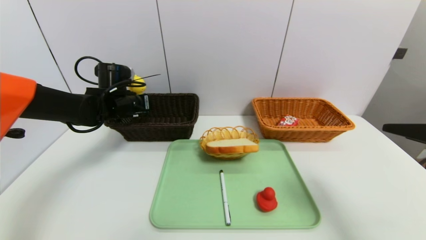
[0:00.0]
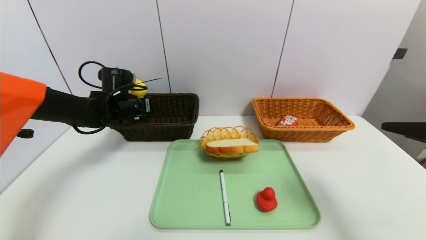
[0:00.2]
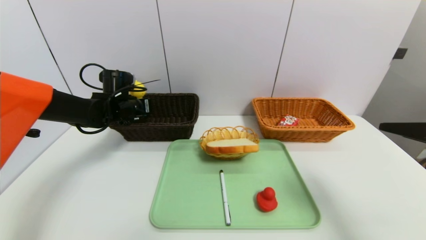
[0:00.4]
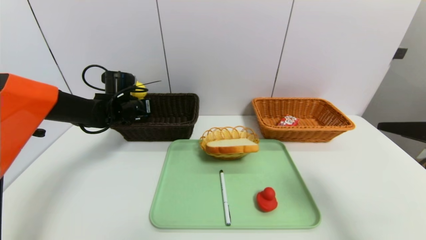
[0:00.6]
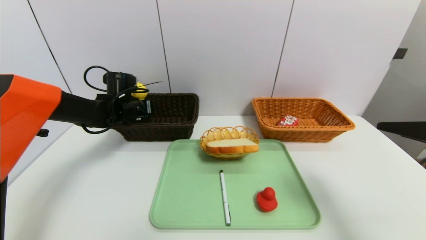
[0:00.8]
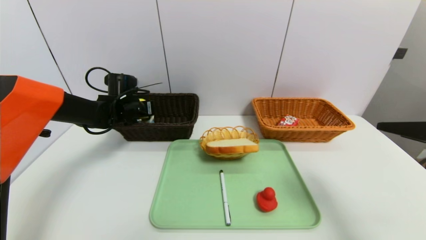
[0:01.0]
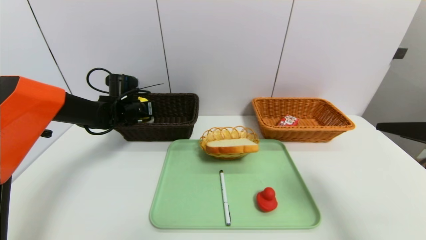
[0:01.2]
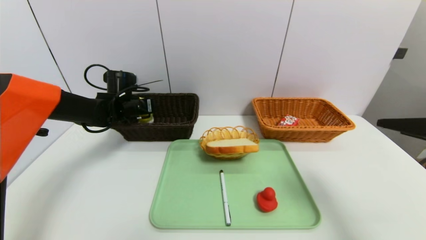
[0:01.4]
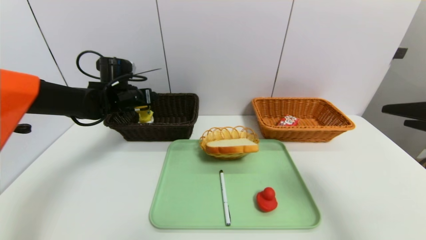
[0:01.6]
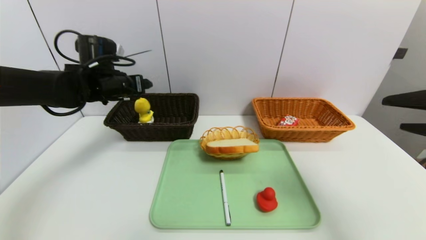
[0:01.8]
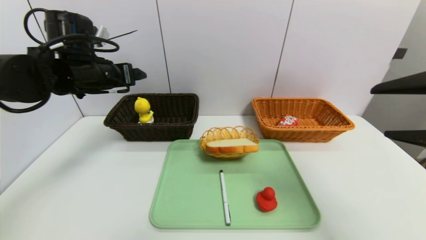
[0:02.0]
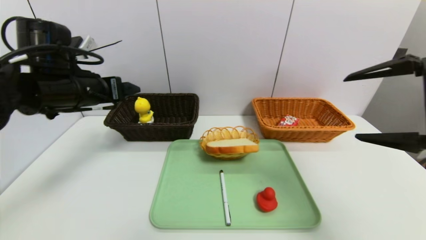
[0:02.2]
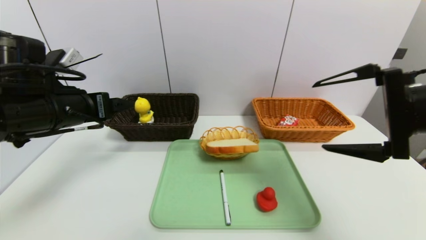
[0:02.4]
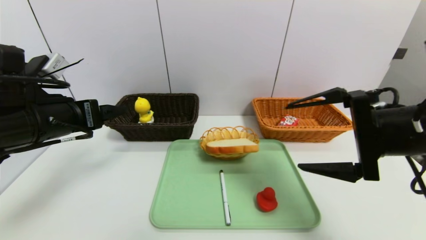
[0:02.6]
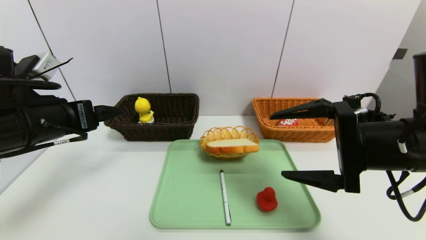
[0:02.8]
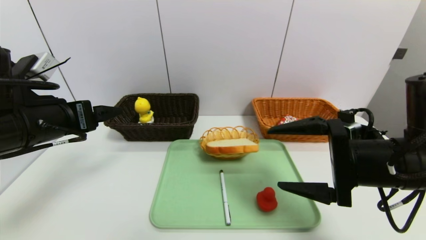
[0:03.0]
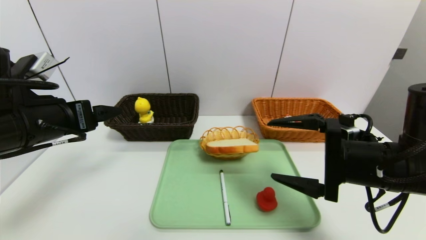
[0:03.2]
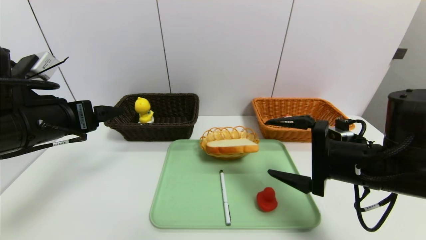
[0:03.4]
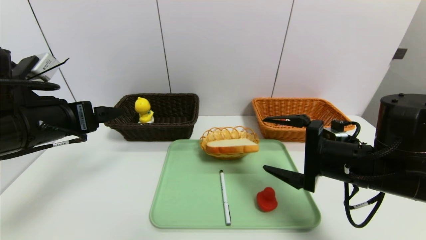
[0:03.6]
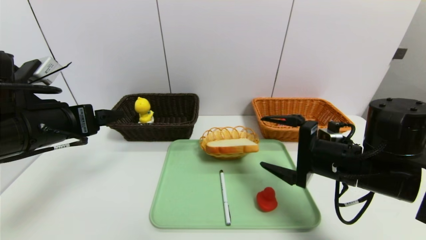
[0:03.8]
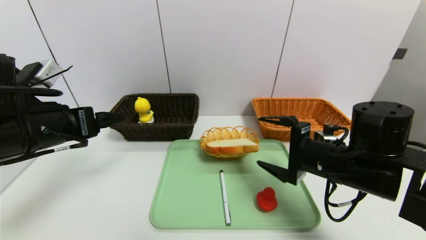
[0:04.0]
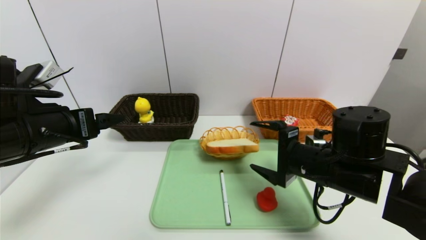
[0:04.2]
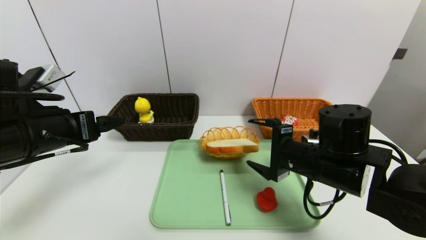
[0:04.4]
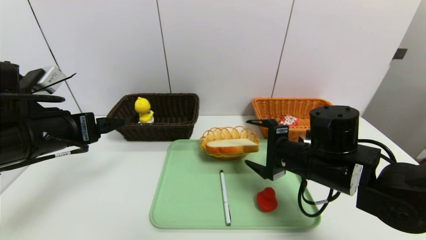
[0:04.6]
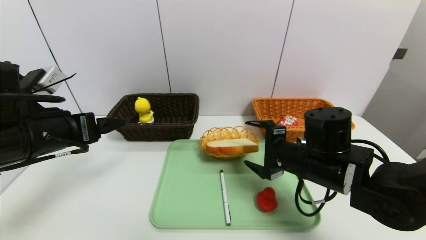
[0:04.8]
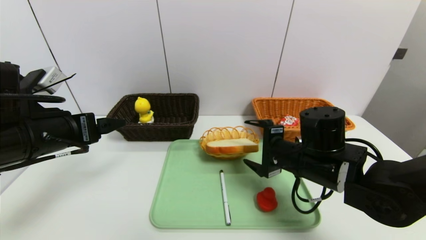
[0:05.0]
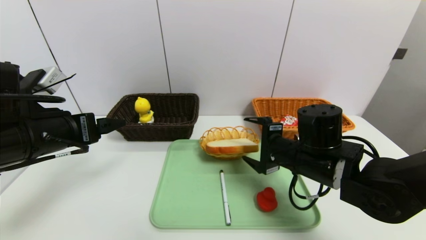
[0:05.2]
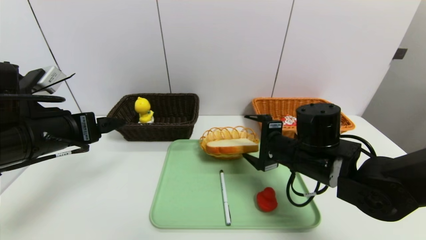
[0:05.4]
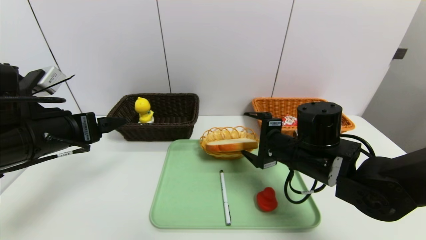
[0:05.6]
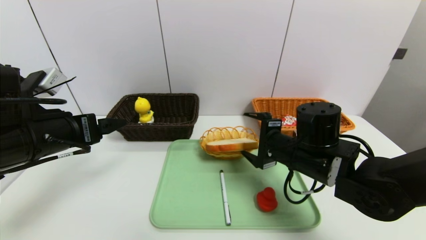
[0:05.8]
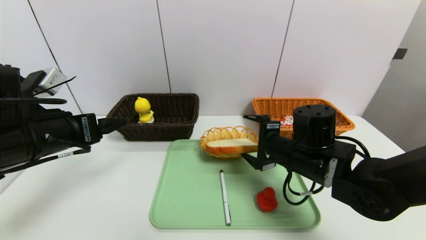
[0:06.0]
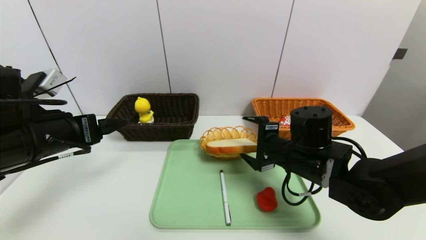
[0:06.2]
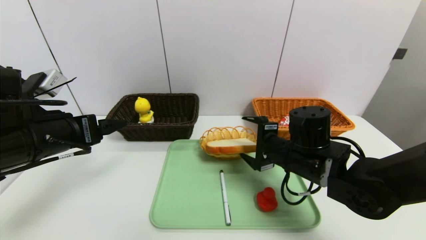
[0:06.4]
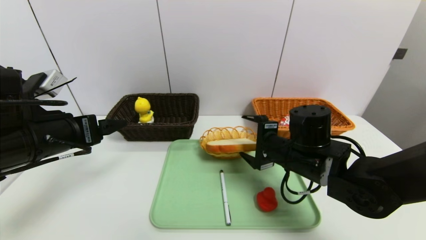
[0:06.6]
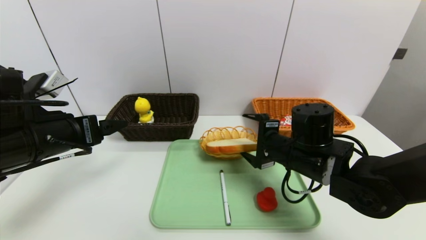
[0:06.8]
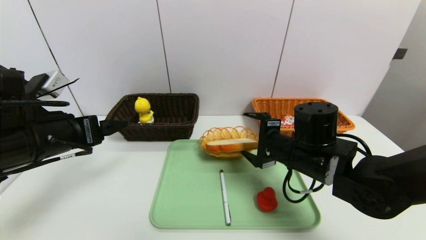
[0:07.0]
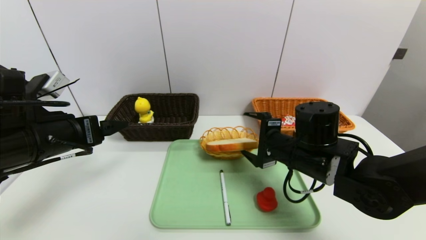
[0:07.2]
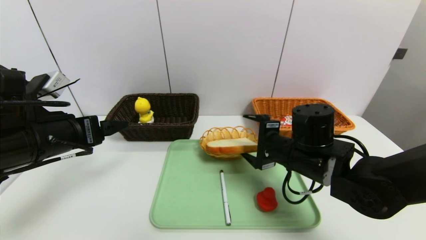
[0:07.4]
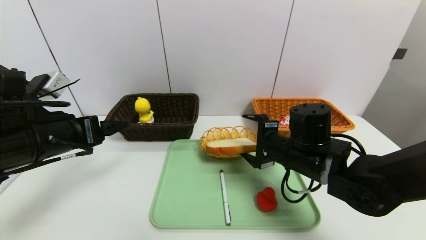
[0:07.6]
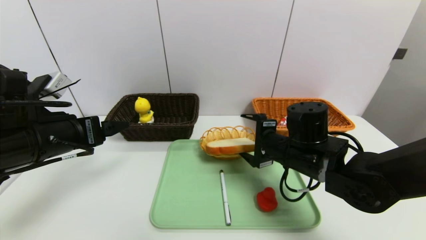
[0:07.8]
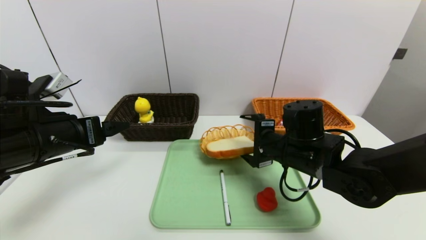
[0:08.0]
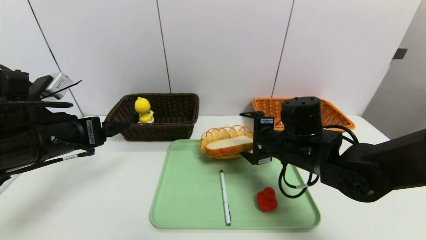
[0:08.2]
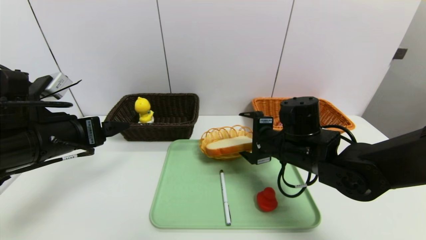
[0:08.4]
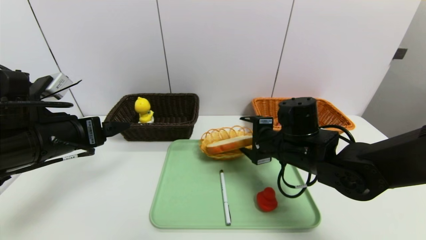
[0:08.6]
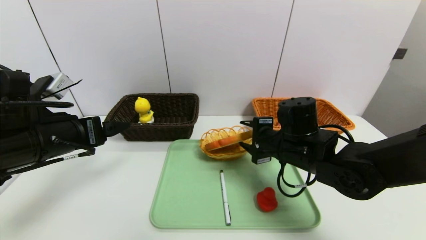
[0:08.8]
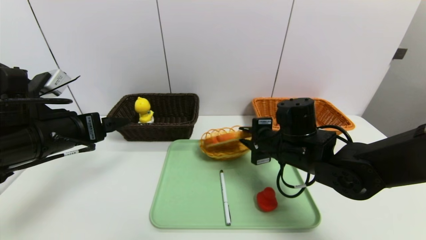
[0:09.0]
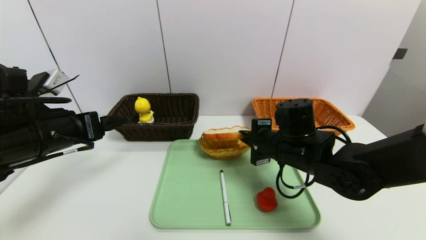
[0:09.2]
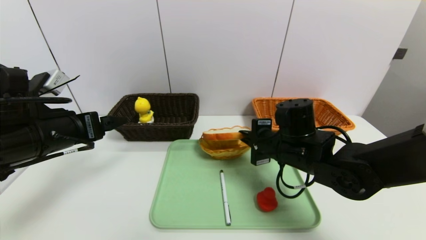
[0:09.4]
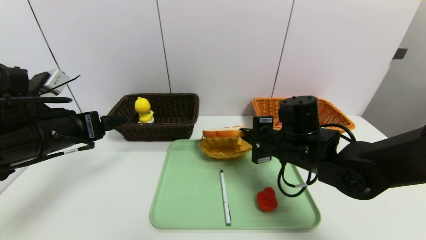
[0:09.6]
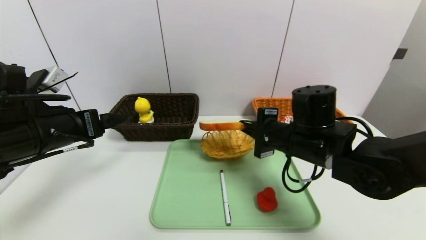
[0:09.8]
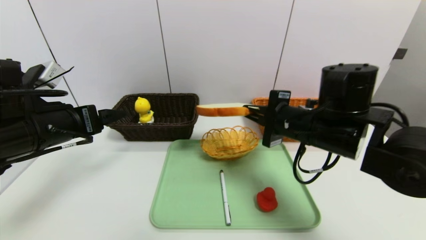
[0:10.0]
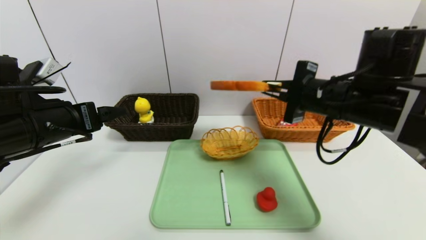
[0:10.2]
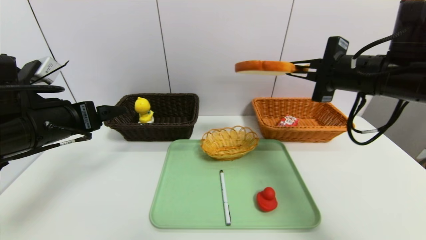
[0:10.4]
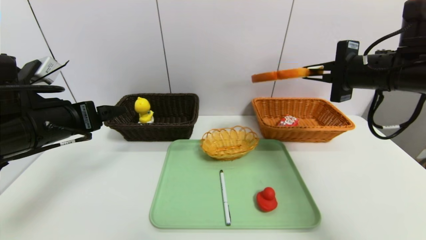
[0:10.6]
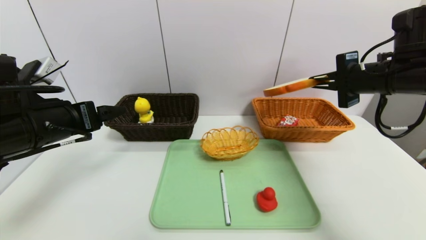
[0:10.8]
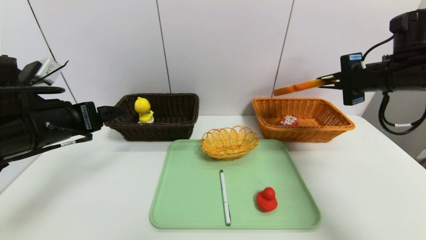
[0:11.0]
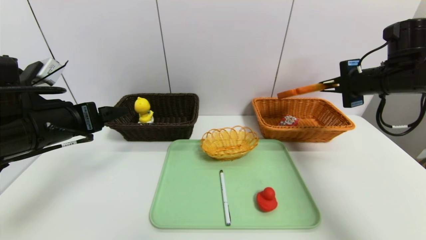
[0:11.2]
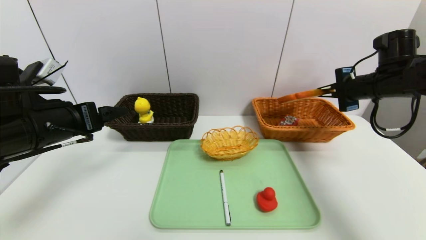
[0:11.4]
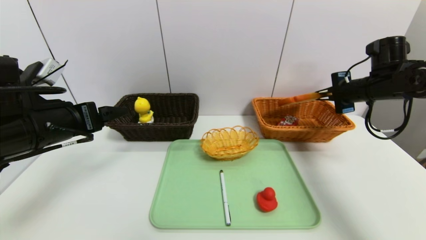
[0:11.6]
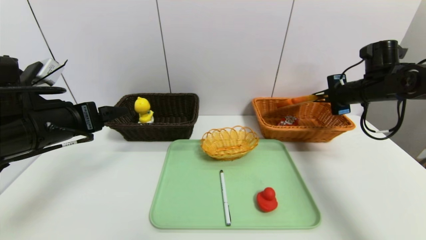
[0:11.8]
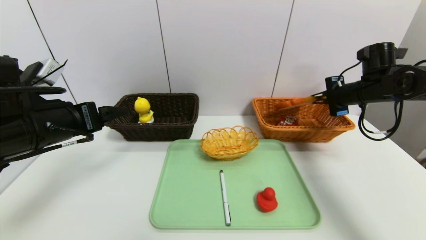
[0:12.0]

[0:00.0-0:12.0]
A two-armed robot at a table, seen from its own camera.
Task of the whole recording: place the food in the right basket with the right gripper, and place the non food items in the left basket with the left gripper.
0:00.0 to 0:01.6: The left gripper opens its fingers.
0:01.6 to 0:03.0: The left gripper goes roughly 20 cm backward, while the right gripper travels to the left and downward by about 15 cm.
0:03.0 to 0:04.4: The right gripper moves downward, forward and to the left, some 10 cm.
0:04.4 to 0:06.0: There are only small adjustments of the grippers.
0:06.0 to 0:07.6: Neither gripper changes place.
0:07.6 to 0:09.0: The right gripper closes up.
0:09.0 to 0:10.4: The right gripper heads upward and to the right, covering some 20 cm.
0:10.4 to 0:12.0: The right gripper shifts roughly 20 cm forward, to the right and downward.

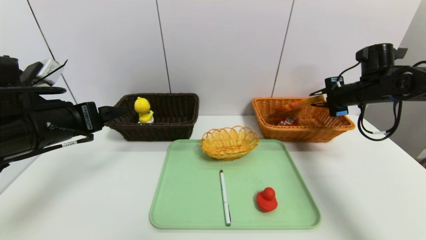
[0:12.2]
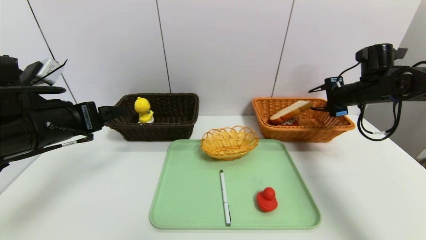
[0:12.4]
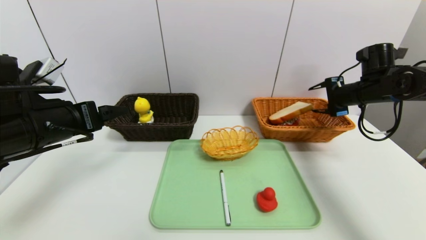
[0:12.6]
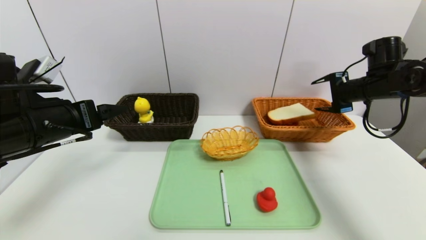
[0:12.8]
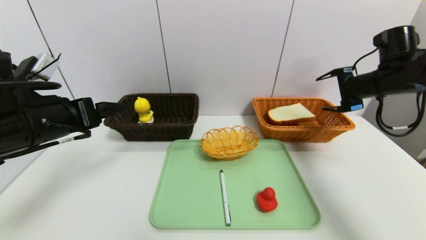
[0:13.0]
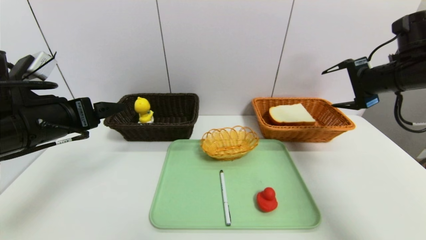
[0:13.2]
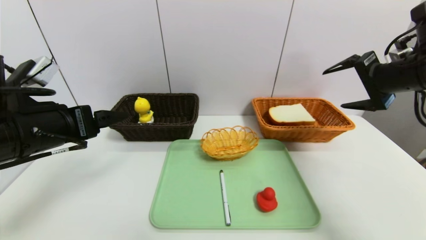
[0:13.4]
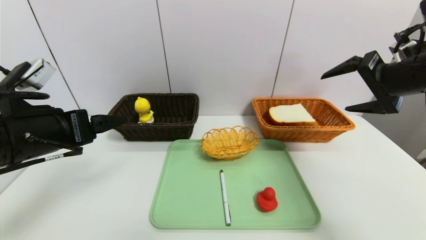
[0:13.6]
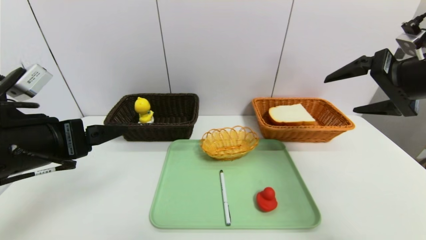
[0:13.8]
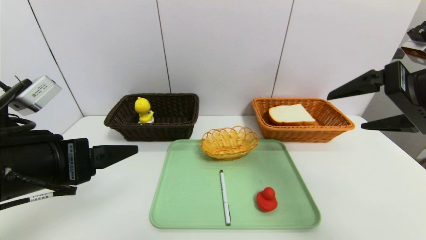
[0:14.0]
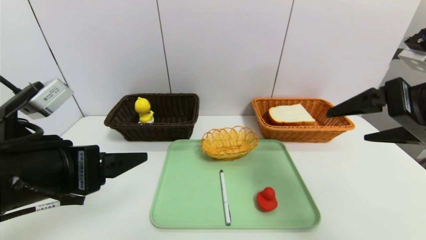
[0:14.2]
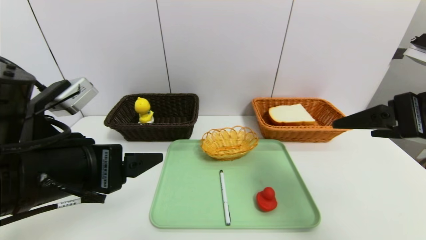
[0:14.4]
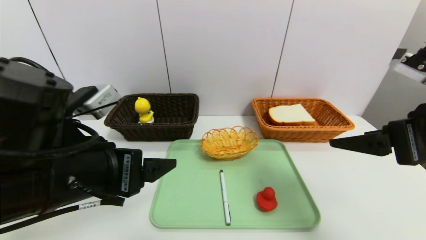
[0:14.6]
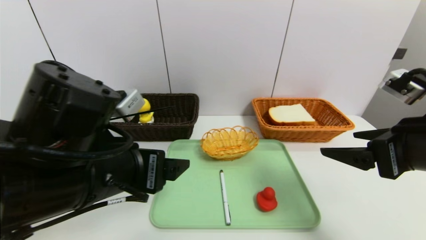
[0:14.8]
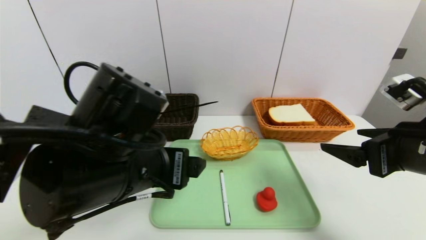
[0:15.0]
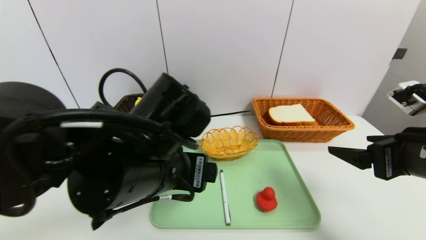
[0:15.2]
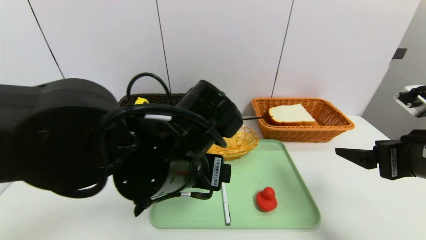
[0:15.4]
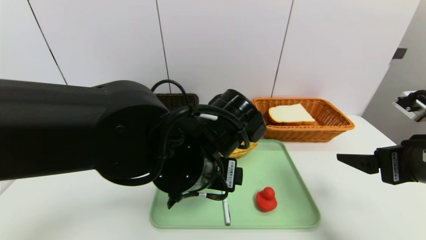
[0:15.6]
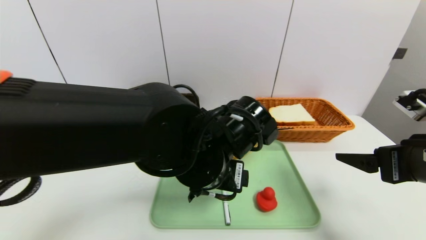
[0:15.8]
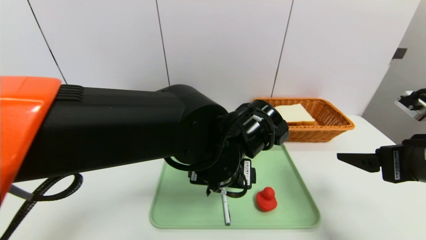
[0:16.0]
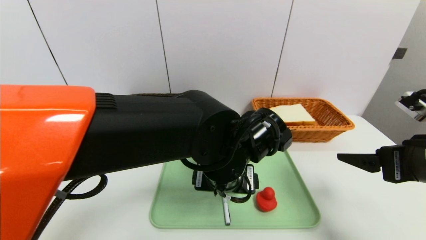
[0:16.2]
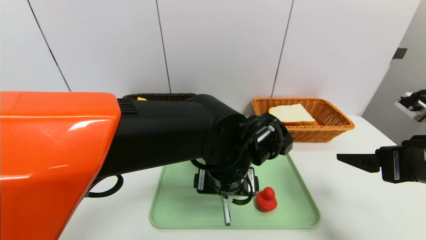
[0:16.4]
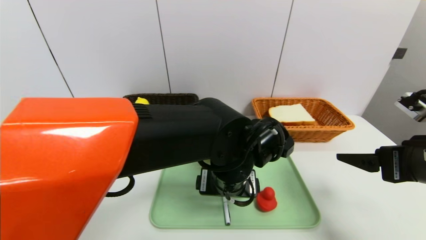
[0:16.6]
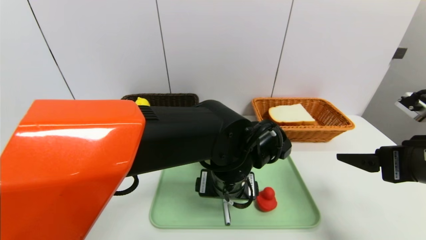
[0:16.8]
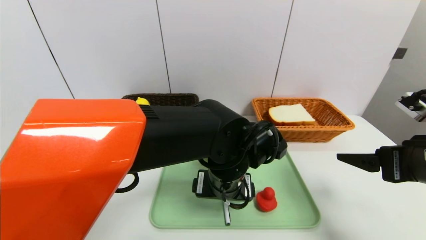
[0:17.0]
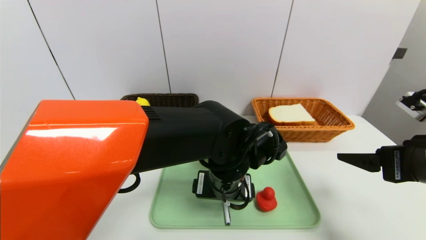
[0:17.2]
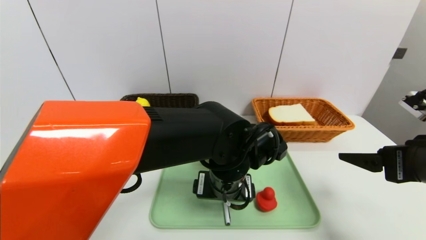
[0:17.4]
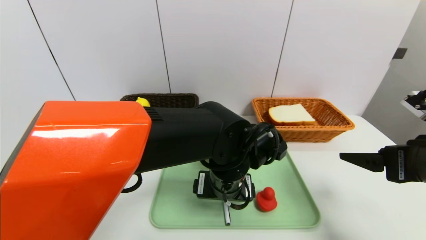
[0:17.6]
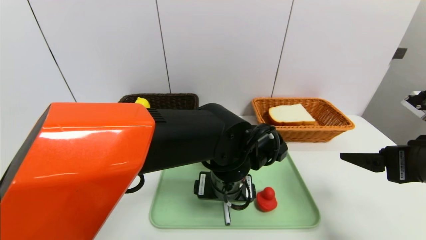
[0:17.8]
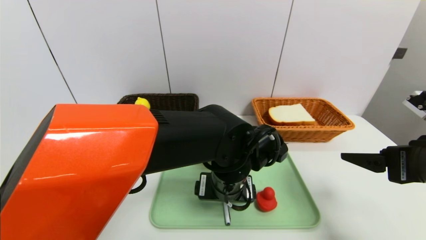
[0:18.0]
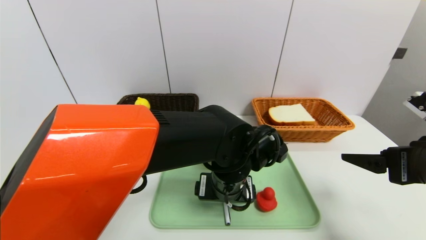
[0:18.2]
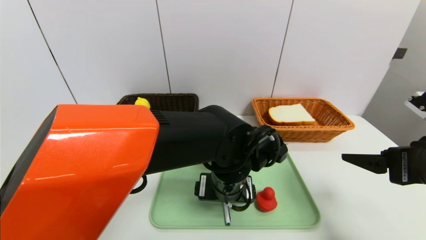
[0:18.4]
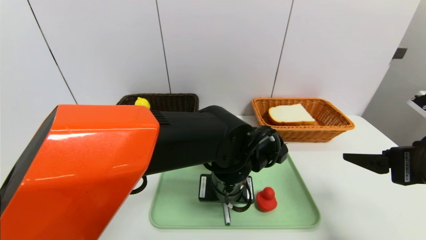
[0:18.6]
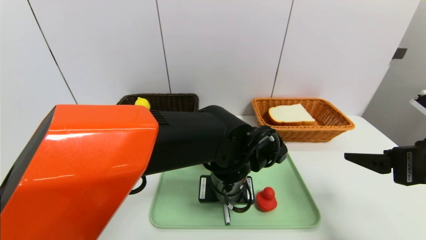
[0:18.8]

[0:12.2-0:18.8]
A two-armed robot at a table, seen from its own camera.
Task of the whole recording: place the food in the right basket with the right gripper, and place the non food items in the left basket with the left gripper.
0:12.2 to 0:13.8: The left gripper travels backward by roughly 5 cm. Meanwhile the right gripper goes roughly 20 cm backward and upward, and opens up.
0:13.8 to 0:15.4: The right gripper shifts about 10 cm downward and backward, while the left gripper is displaced to the right by approximately 20 cm.
0:15.4 to 0:17.2: The left gripper moves to the right and downward, some 10 cm.
0:17.2 to 0:18.8: The left gripper closes its fingers.
